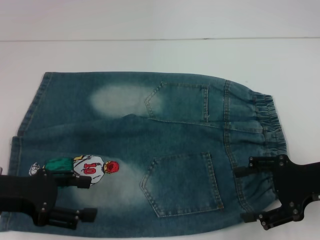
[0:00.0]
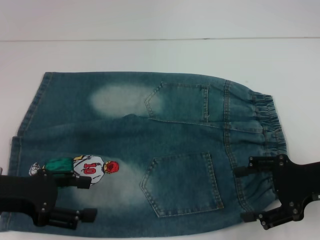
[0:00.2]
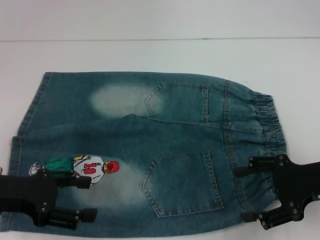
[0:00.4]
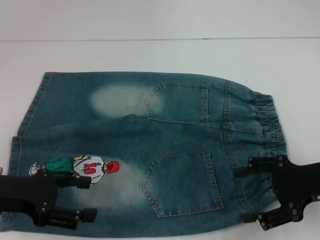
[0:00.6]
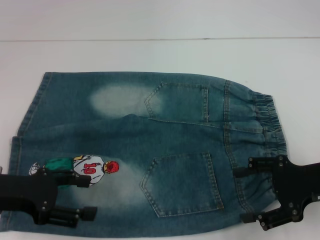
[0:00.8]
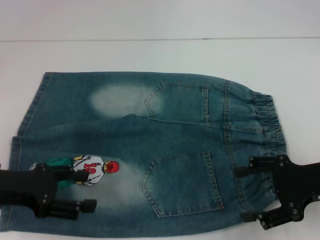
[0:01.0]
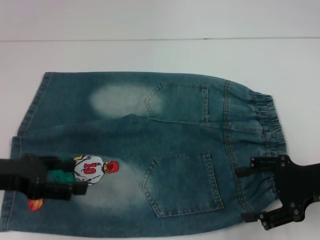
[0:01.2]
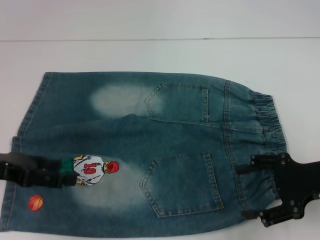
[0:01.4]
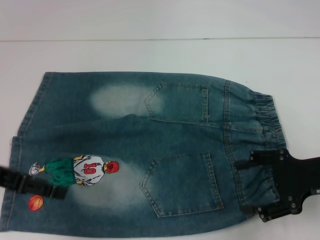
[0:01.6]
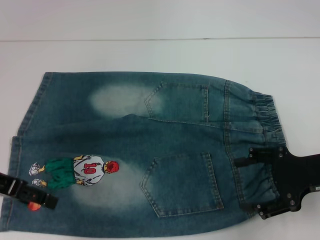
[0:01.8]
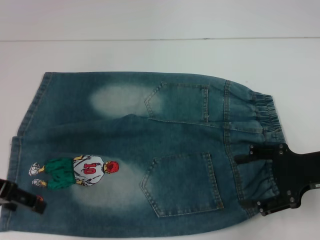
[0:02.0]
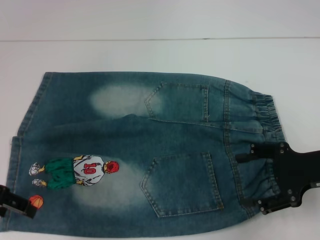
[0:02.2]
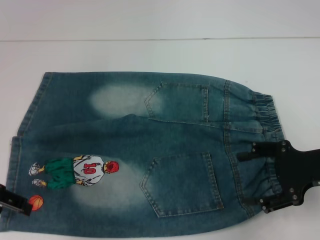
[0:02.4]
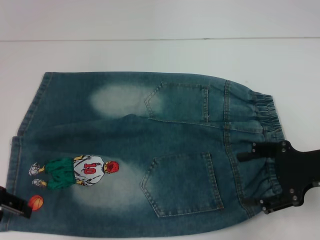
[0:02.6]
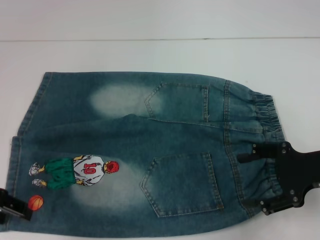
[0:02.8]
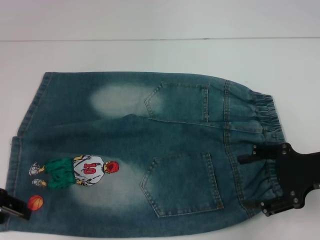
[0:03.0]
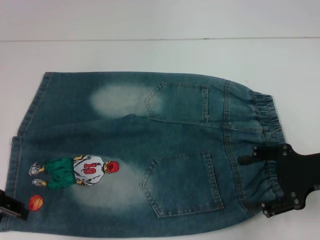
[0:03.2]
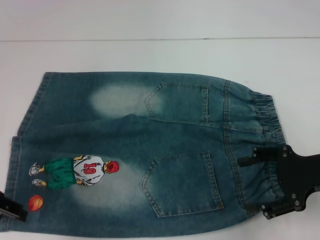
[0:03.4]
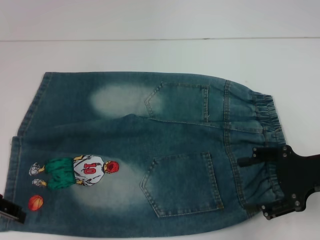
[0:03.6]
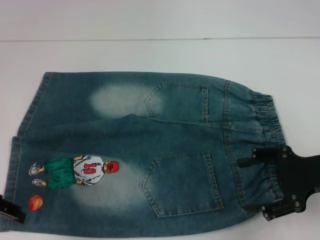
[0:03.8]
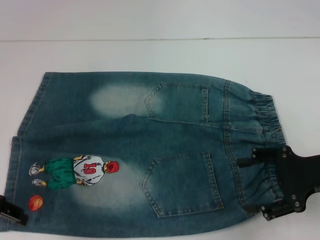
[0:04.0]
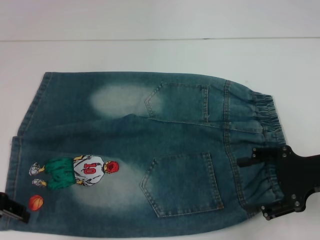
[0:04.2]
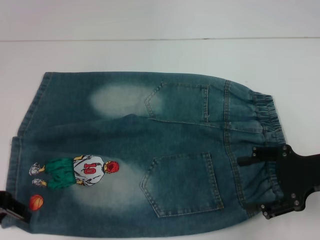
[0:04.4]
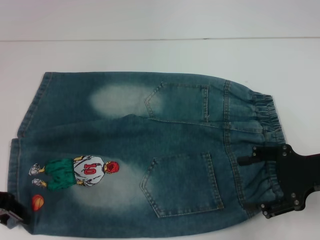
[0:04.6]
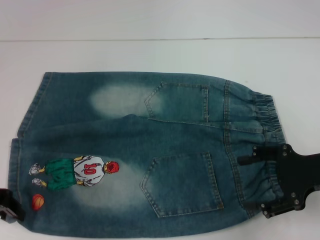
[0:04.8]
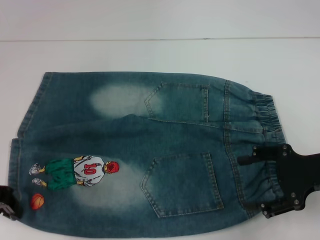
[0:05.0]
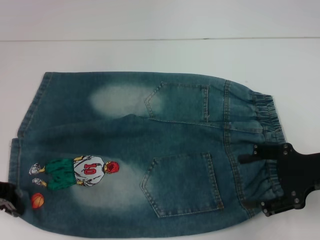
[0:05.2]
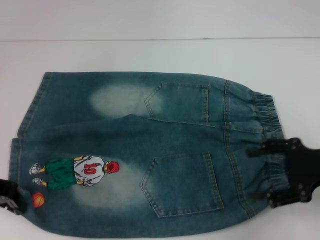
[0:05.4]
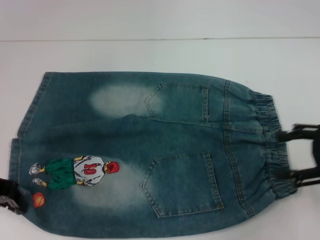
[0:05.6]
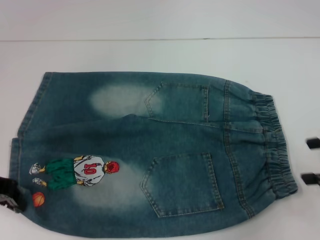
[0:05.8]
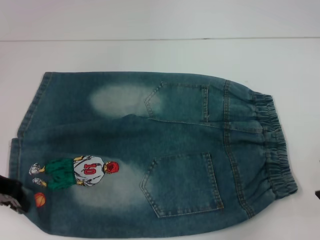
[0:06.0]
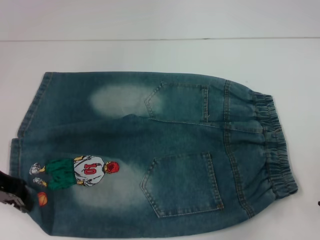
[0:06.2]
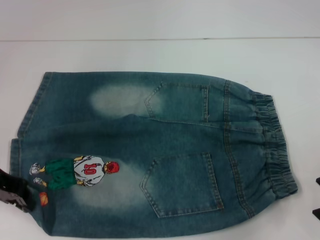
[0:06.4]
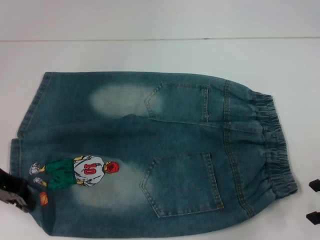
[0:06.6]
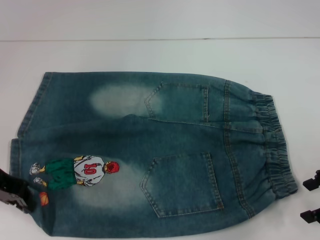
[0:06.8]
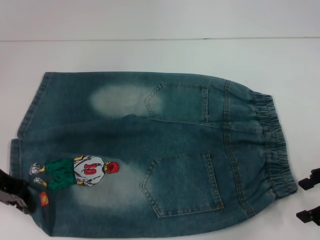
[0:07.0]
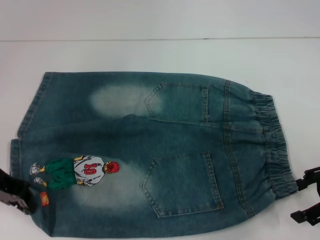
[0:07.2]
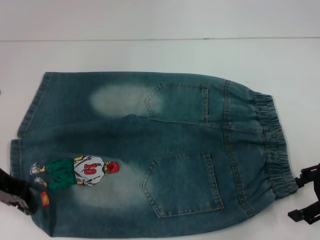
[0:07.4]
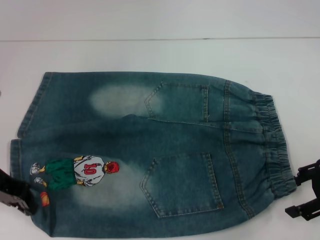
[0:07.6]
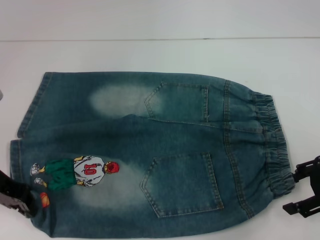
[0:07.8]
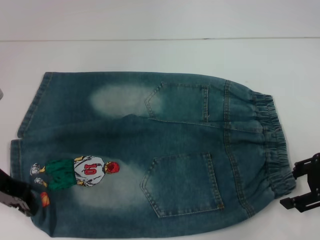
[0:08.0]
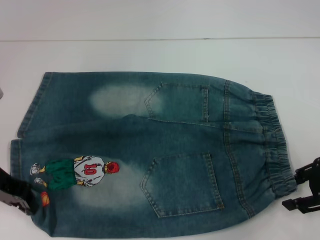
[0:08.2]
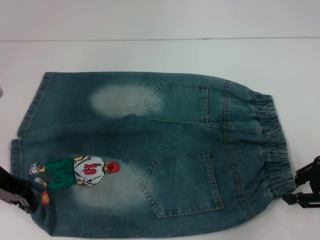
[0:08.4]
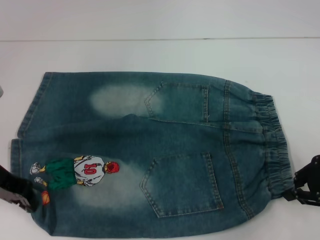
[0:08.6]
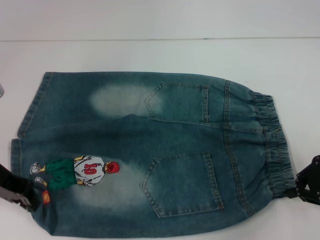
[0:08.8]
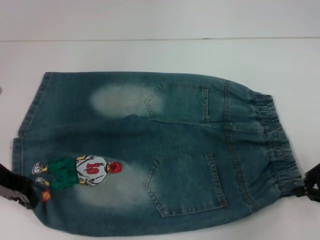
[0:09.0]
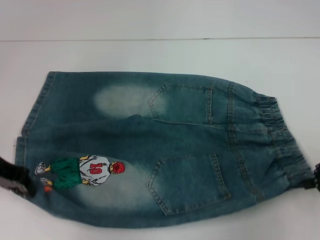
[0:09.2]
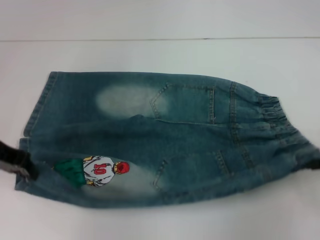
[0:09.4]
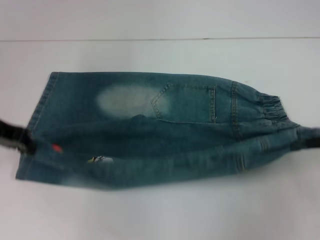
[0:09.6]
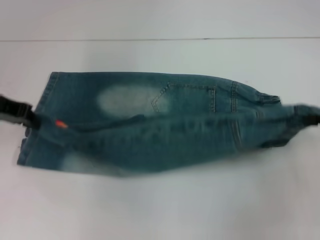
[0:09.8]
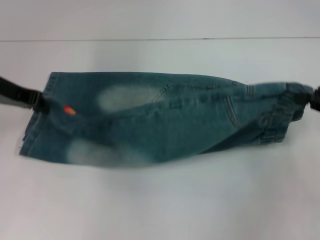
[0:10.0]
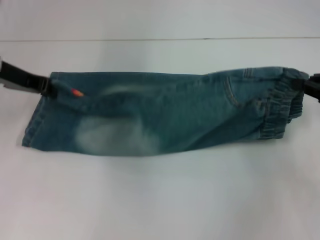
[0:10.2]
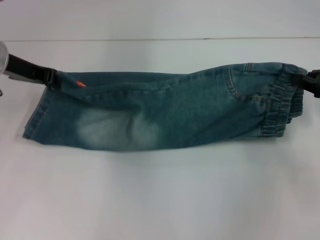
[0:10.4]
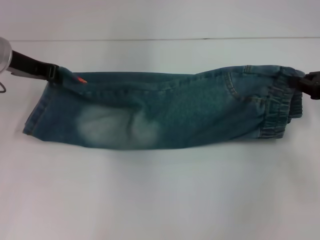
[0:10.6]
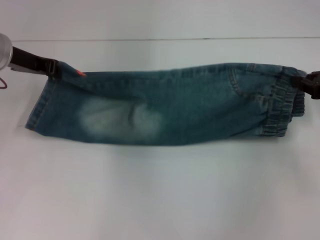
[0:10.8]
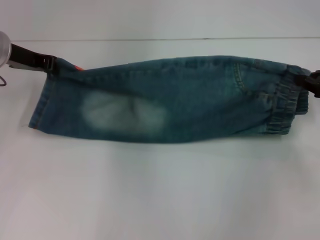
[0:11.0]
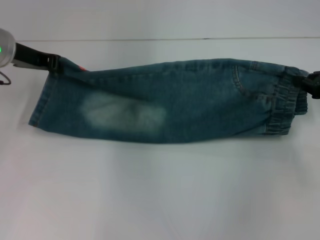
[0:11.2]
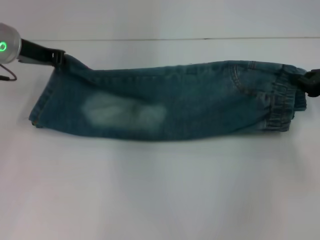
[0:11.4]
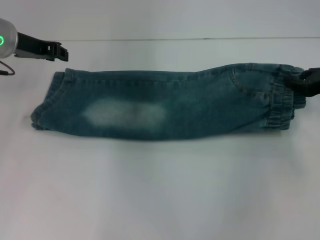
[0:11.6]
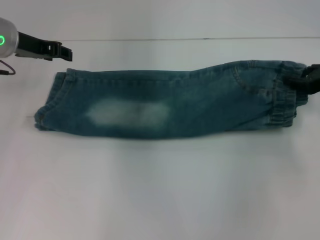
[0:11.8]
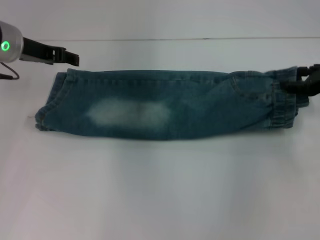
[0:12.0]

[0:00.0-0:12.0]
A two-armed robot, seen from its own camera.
Step, 0:00.0 to 0:05.0: Grab the lower left pant leg with your left hand.
Step, 0:05.4 to 0:09.0: Hold the lower right waistband with your right hand.
0:00.0 to 0:01.6: The left gripper moves some 5 cm.
0:03.0 to 0:04.4: Neither gripper changes place.
0:04.4 to 0:06.0: The right gripper heads to the right and upward, covering about 10 cm. The left gripper closes its fingers.
0:06.0 to 0:07.6: The right gripper moves some 5 cm.
0:07.6 to 0:09.0: The right gripper closes.
0:09.0 to 0:10.4: The grippers both shift forward by roughly 10 cm.
0:10.4 to 0:12.0: The left gripper opens up, while the right gripper opens its fingers.

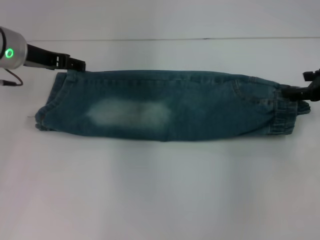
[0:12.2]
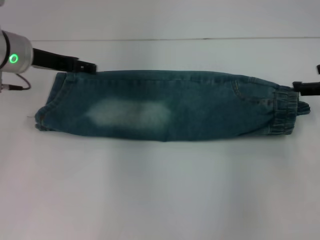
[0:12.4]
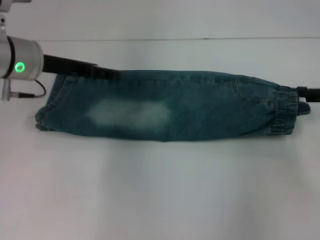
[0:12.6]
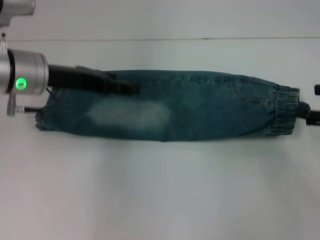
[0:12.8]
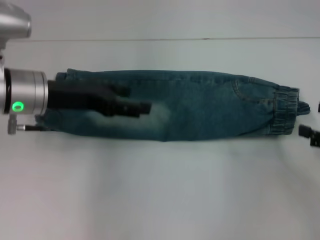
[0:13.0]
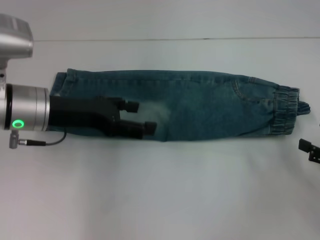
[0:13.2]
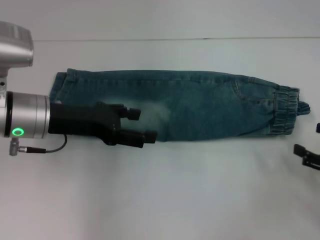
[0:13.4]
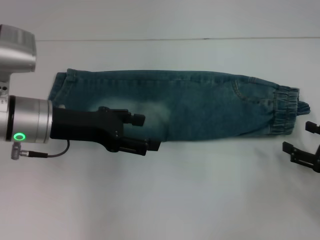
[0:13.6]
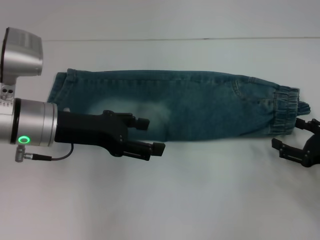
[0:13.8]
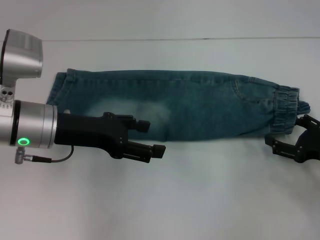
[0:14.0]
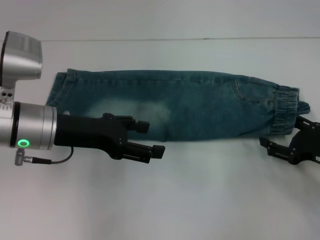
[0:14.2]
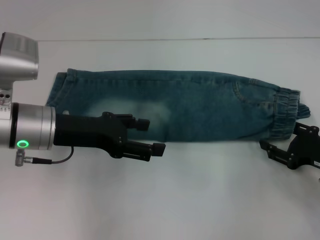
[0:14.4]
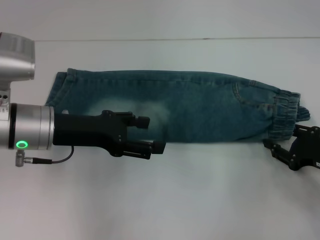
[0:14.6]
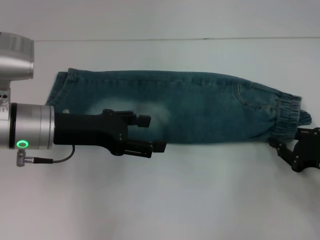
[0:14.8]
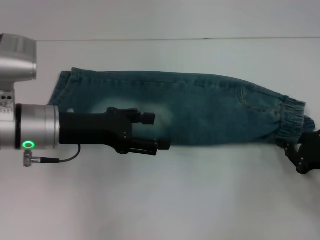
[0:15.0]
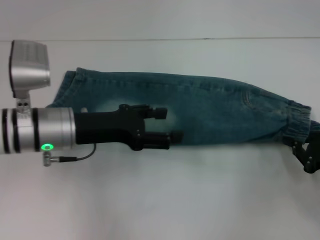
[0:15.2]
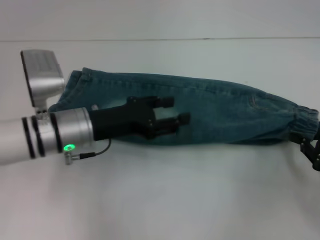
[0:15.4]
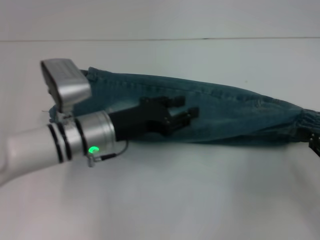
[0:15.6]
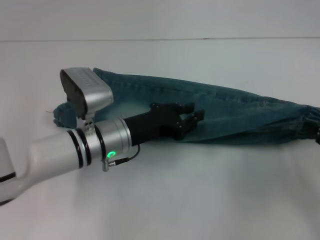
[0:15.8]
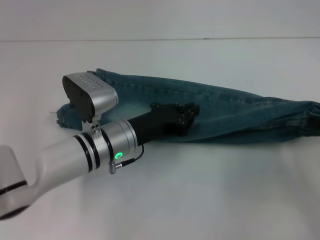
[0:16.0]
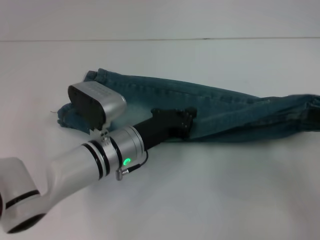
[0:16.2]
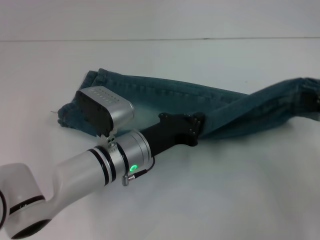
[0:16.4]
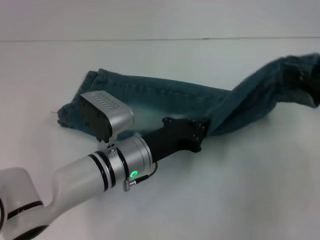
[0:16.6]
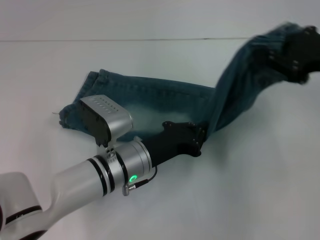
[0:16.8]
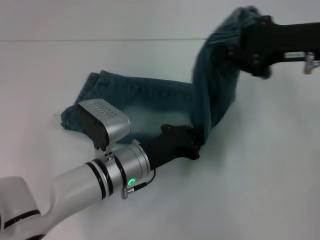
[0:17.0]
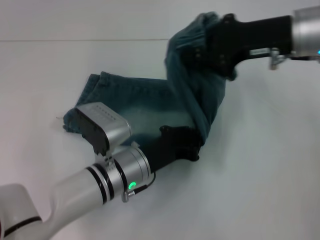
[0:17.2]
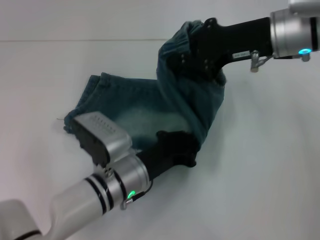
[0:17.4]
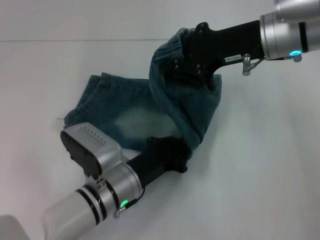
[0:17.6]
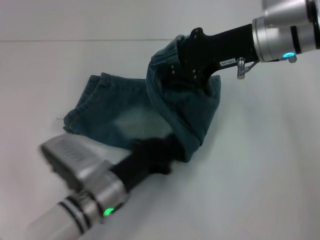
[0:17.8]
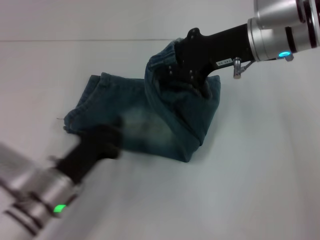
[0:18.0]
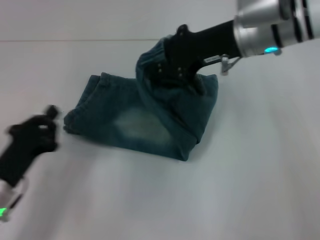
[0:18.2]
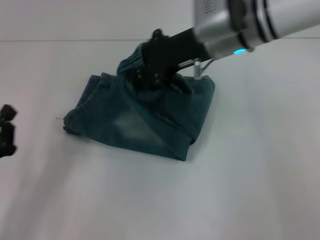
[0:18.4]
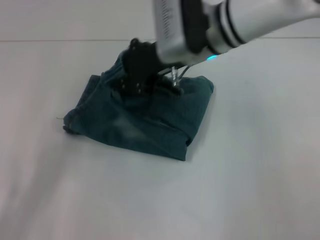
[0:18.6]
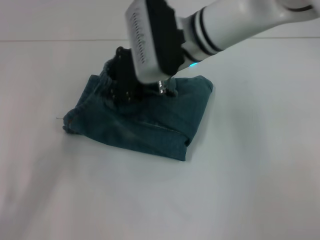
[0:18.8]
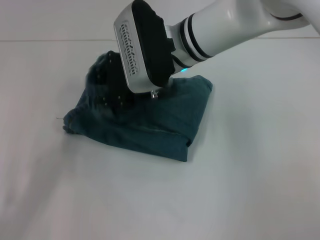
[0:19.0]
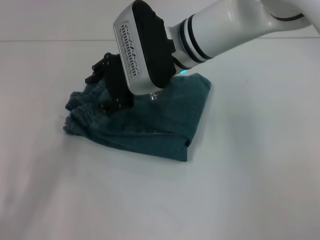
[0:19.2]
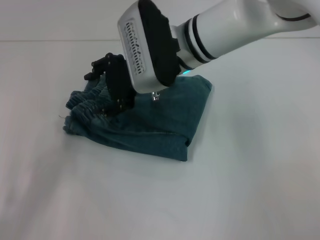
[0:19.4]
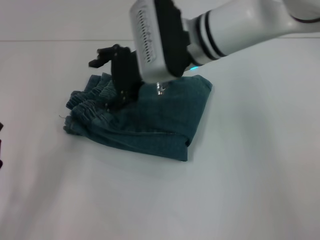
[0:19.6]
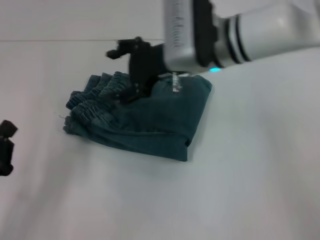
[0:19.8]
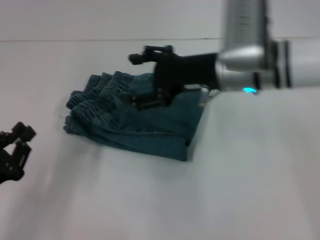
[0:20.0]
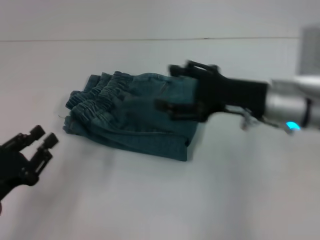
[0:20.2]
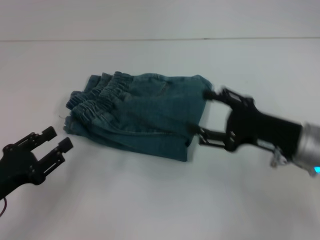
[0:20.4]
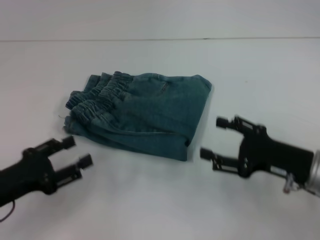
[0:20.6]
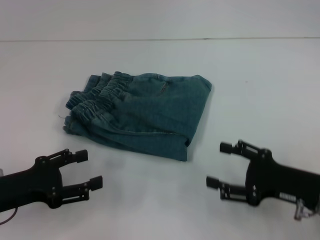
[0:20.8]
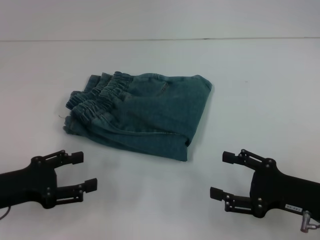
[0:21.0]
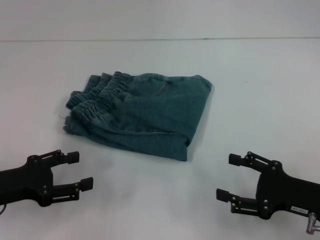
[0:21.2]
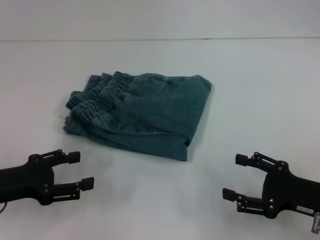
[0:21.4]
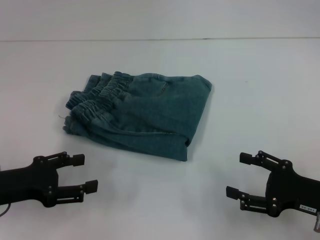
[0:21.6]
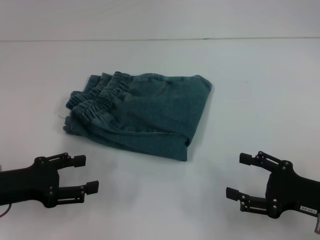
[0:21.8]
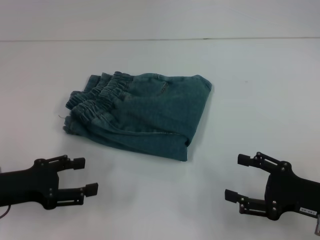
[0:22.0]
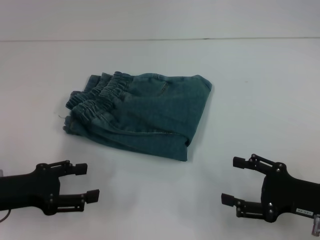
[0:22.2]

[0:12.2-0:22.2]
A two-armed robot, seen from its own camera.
Step, 0:12.4 to 0:15.2: Grab the waistband with your right hand.
Step, 0:15.4 to 0:17.8: Press the middle of the pants with your left hand.
Step, 0:18.0 to 0:20.0: Fold to the left with your right hand.
0:12.2 to 0:13.6: The left gripper moves backward, about 10 cm, while the right gripper travels backward and downward by approximately 15 cm.
0:13.6 to 0:15.0: The right gripper closes its fingers.
0:15.0 to 0:16.4: The right gripper goes approximately 10 cm upward. Meanwhile the left gripper is displaced to the right and downward by some 15 cm, and closes.
0:16.4 to 0:18.0: The right gripper heads to the left and forward, covering some 25 cm. Meanwhile the left gripper is displaced to the left and backward by some 10 cm.
0:18.0 to 0:19.4: The left gripper heads to the left and backward, covering some 15 cm; the right gripper travels to the left by roughly 15 cm, and opens up.
0:19.4 to 0:20.8: The right gripper moves to the right, backward and downward, some 30 cm, while the left gripper travels forward by roughly 5 cm, and opens.
0:20.8 to 0:22.2: The grippers make only small movements.
